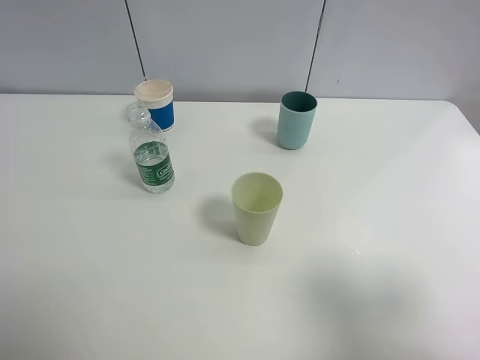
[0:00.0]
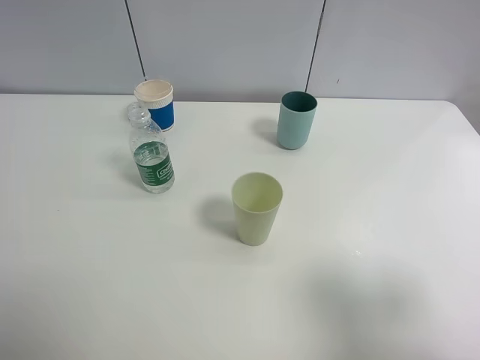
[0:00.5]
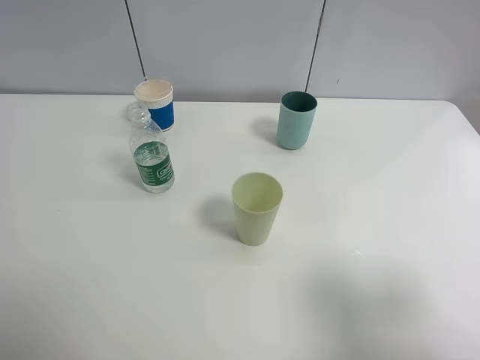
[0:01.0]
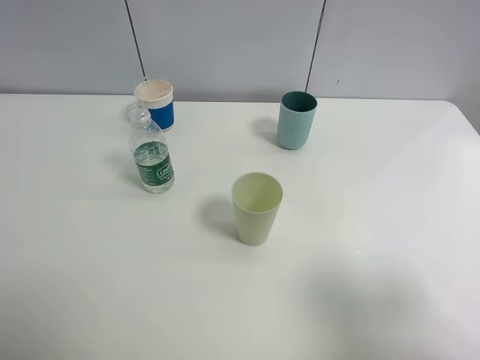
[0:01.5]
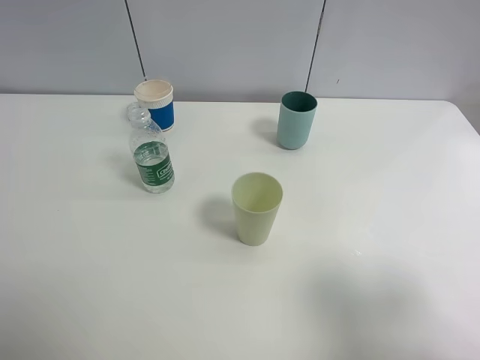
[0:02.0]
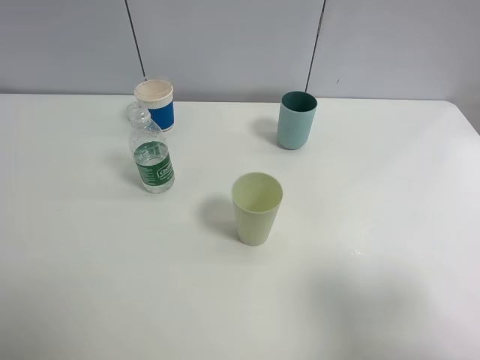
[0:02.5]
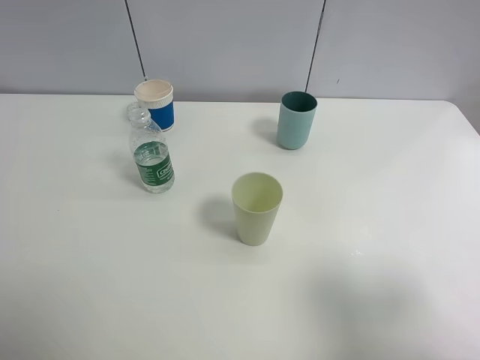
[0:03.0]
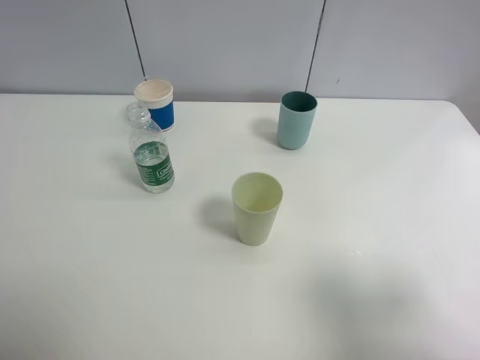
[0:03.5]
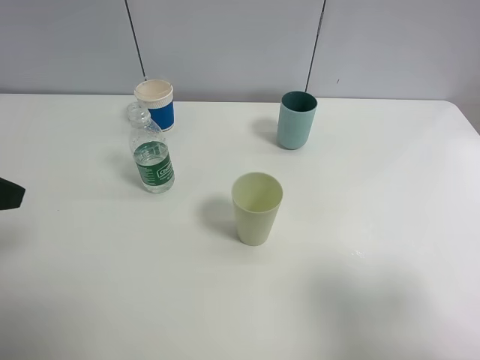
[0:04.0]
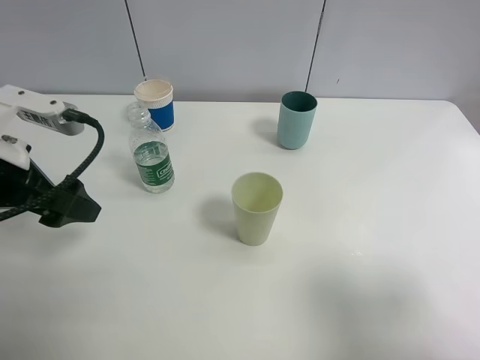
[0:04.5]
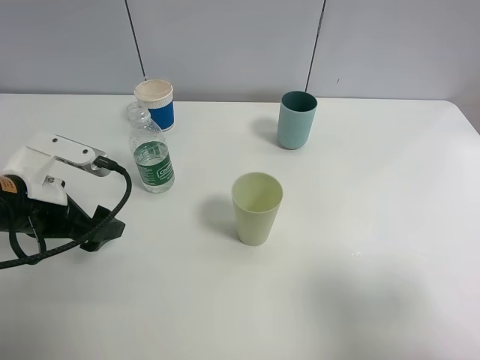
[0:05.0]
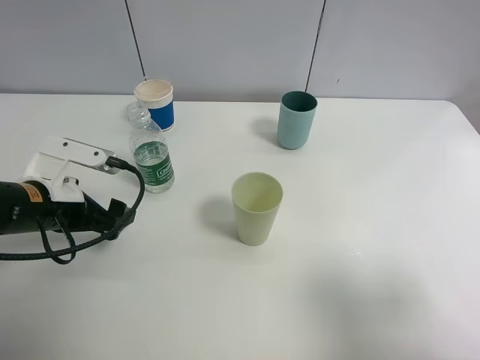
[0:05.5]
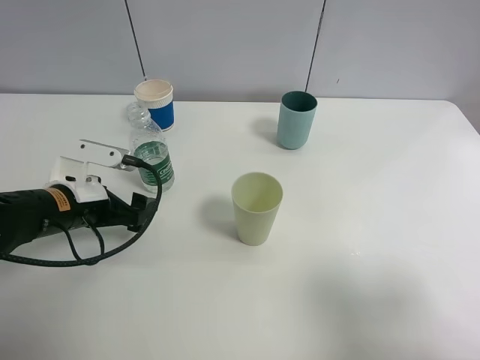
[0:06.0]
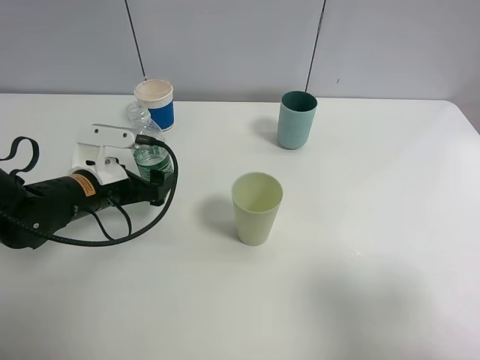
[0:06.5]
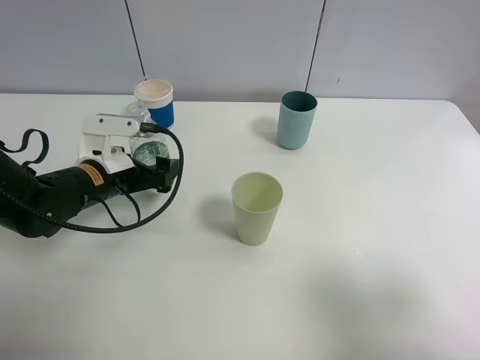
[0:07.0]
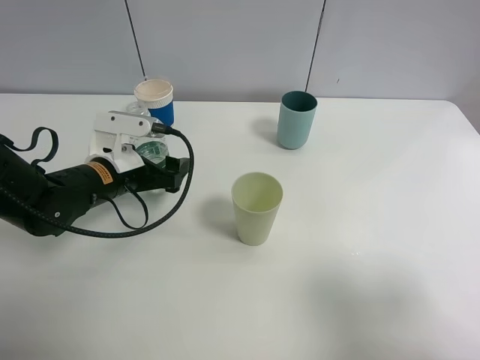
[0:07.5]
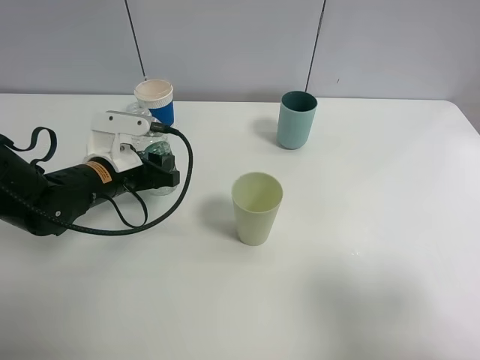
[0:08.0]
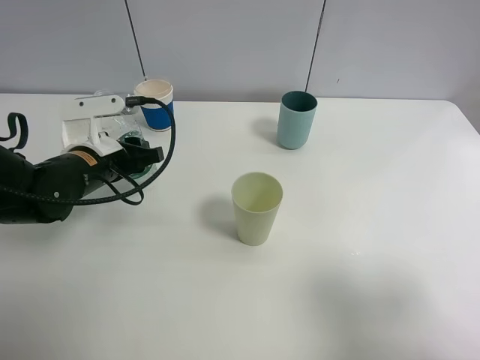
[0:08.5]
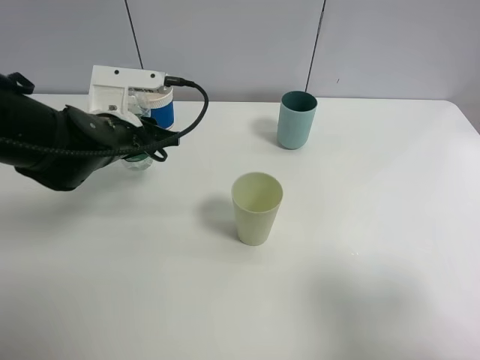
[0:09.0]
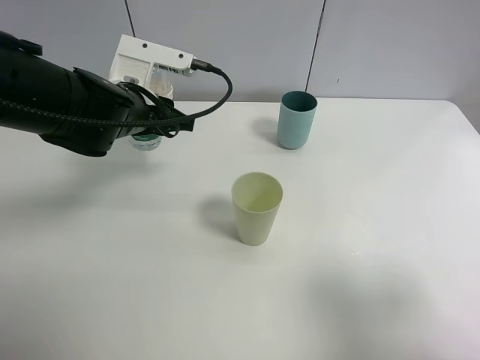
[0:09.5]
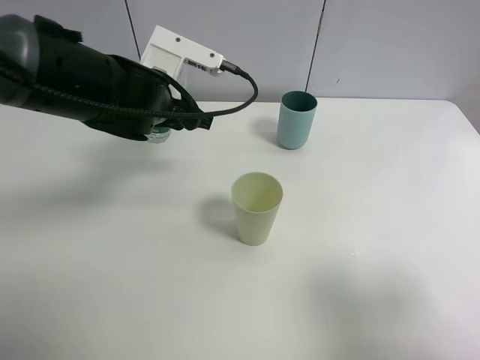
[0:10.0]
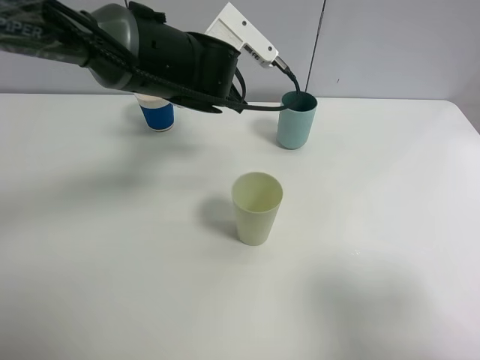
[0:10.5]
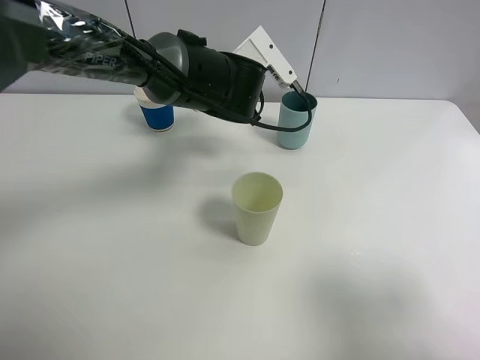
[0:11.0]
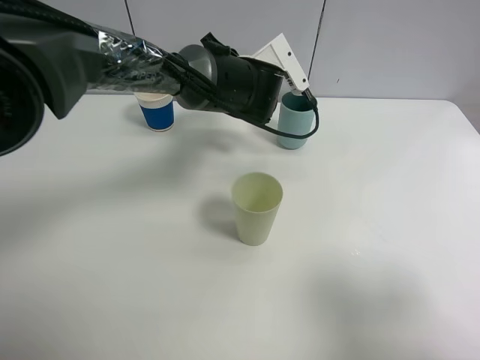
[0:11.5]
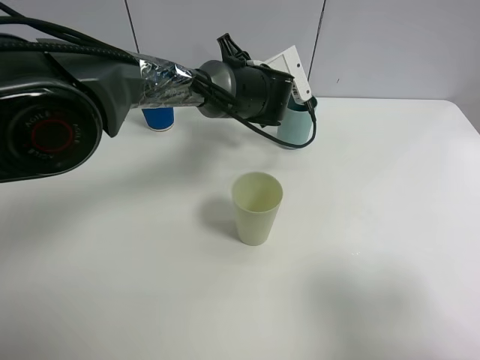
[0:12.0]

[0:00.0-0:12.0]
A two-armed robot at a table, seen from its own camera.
Task of the whole recording: use a clamp to hold the bottle of the drink, pour the beverage into a random cup, then clamp the cup containing the drink and pour the drink into another random cup.
Step, 0:00.0 to 0:08.5: Pick up the water bottle with left gripper.
0:00.0 to 0:02.0: The two grippers keep their place.
0:04.0 to 0:06.0: The left gripper moves downward and forward, some 20 cm.
0:06.0 to 0:08.0: The left gripper shifts by roughly 5 cm, and closes.
0:08.0 to 0:10.0: The left gripper shifts approximately 10 cm upward and to the right.
0:10.0 to 0:12.0: The left gripper travels to the right and forward by roughly 15 cm.

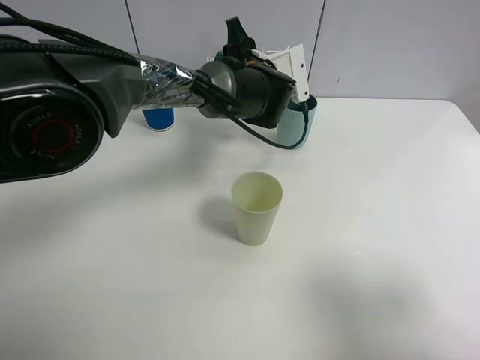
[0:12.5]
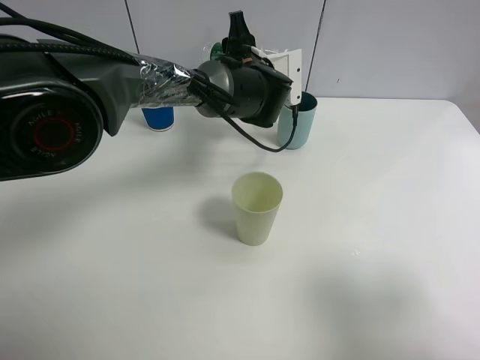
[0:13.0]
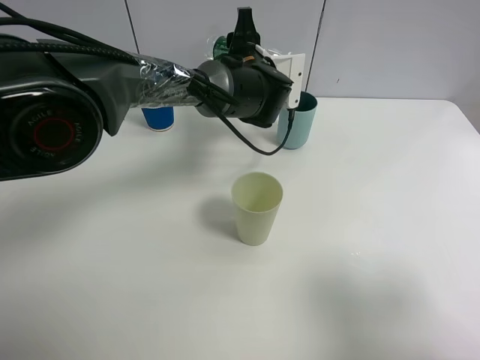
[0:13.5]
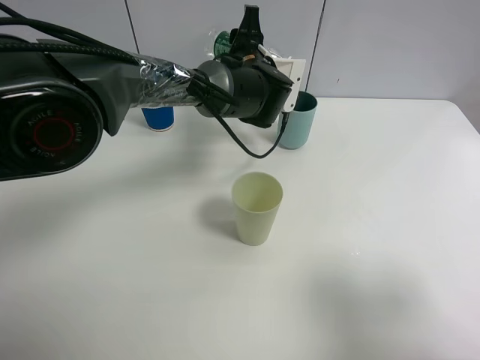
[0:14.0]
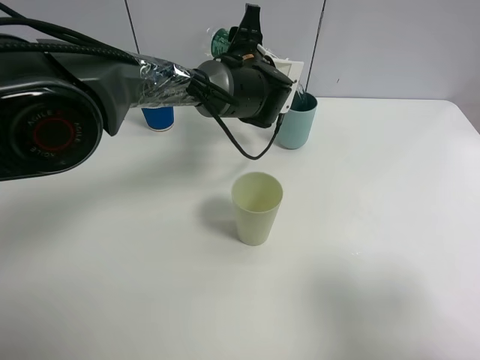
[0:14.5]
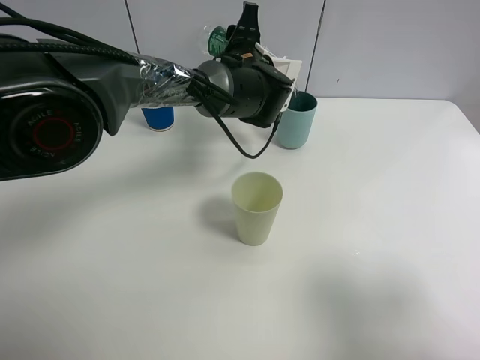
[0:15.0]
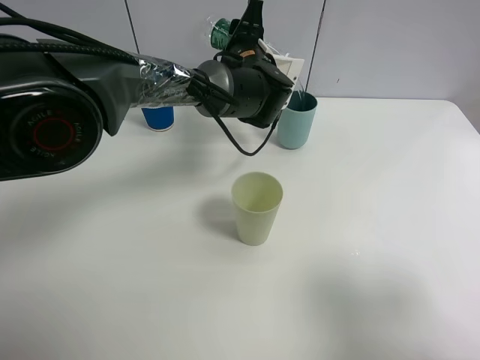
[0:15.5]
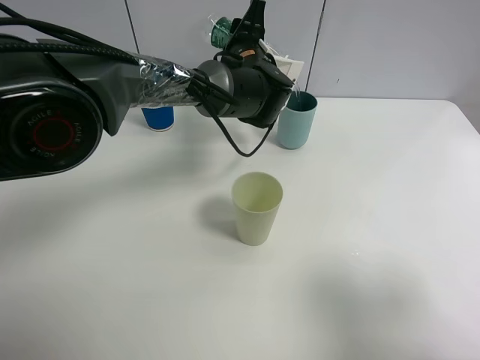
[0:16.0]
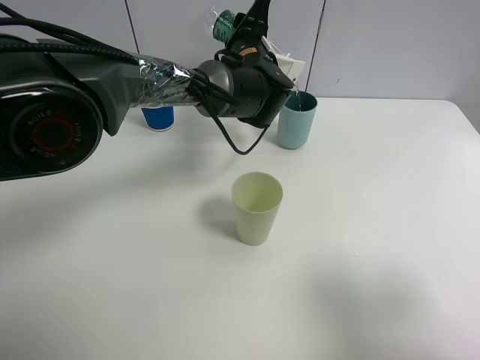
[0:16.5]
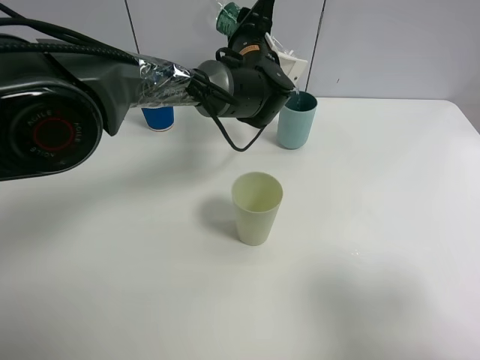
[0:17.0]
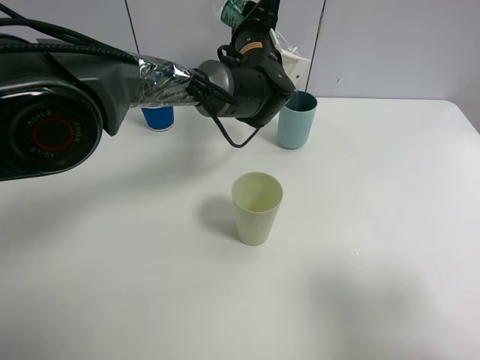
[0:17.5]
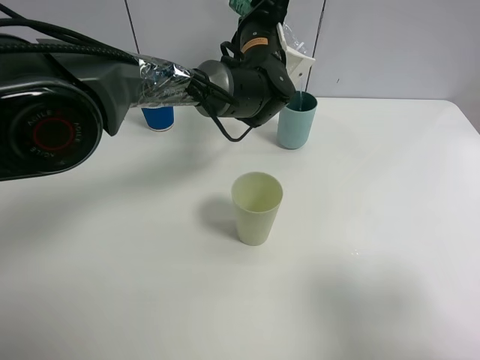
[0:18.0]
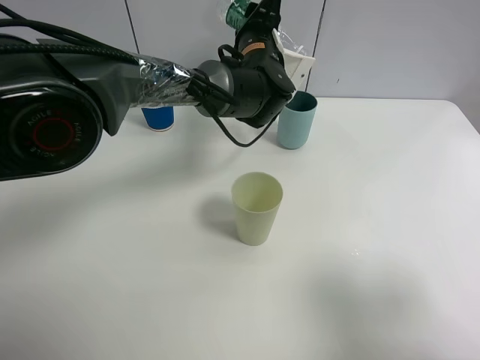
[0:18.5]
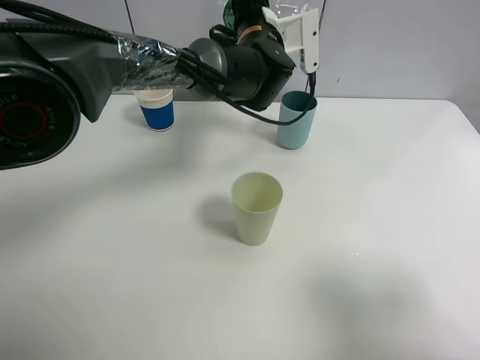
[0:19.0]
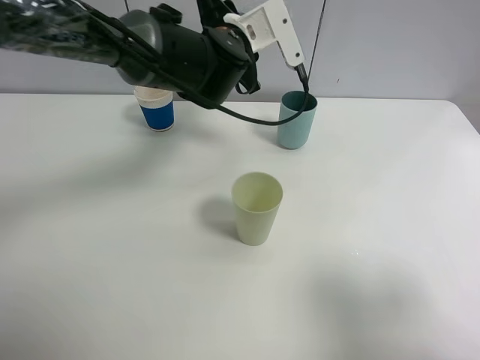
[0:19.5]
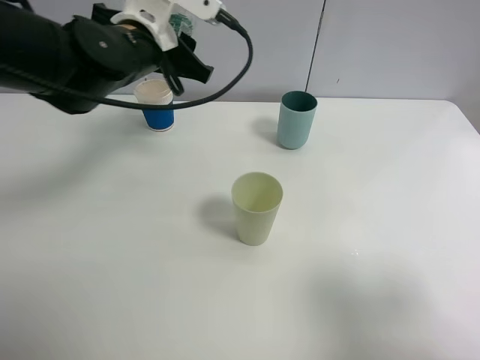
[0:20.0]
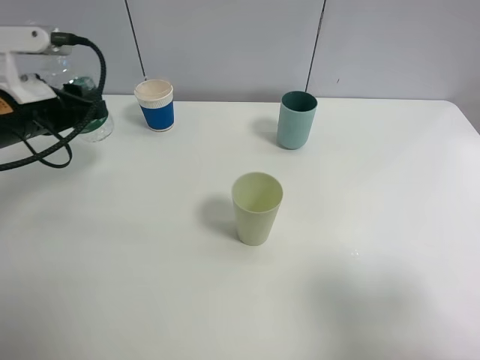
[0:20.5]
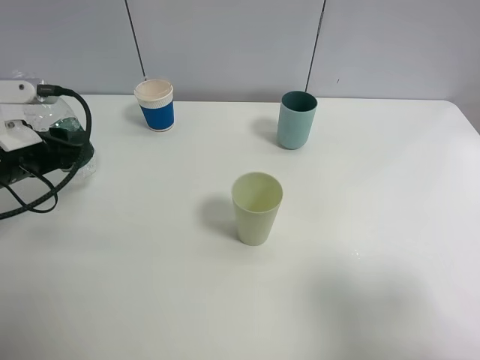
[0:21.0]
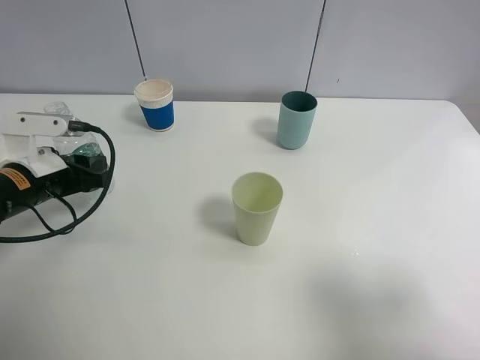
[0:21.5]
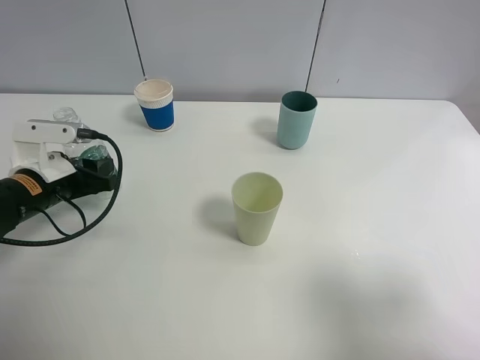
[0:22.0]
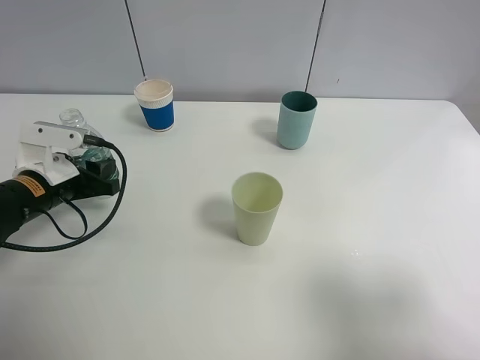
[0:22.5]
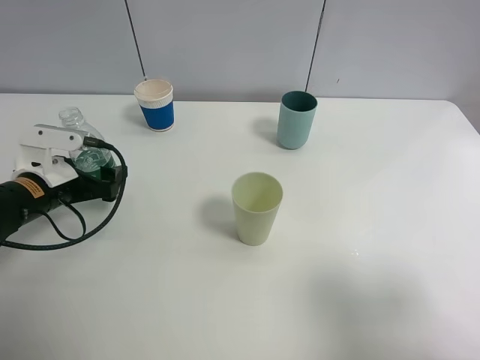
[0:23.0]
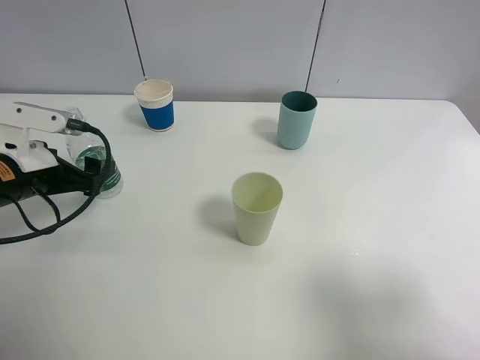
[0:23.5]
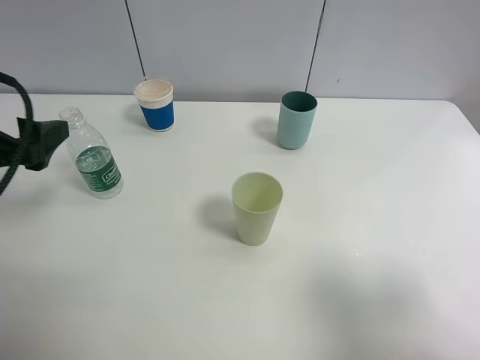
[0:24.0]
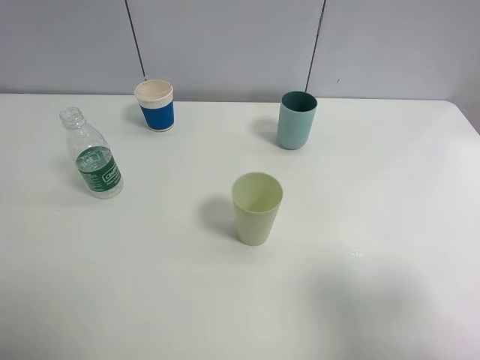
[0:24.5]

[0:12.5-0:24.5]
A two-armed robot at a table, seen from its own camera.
Task of the whole recording: use a clamp to hold the bottle of the drink, pour the beverage into a random cup, then clamp the cup containing the drink and pour the drink into another random cup.
Step, 0:12.5 to 0:18.5: Pour the water into the blue plastic cup with left gripper.
Step, 0:19.0 to 0:23.0: Place the water bottle on the table with left gripper.
0:14.5 to 0:16.5: The grippers move only a little.
0:16.5 to 0:18.5: The grippers make only small movements.
0:18.5 to 0:20.5: The left gripper travels to the left and backward by about 35 cm.
0:20.5 to 0:22.5: The left gripper travels downward by some 10 cm.
0:22.5 to 0:24.5: The left gripper travels upward and backward by some 30 cm, and opens.

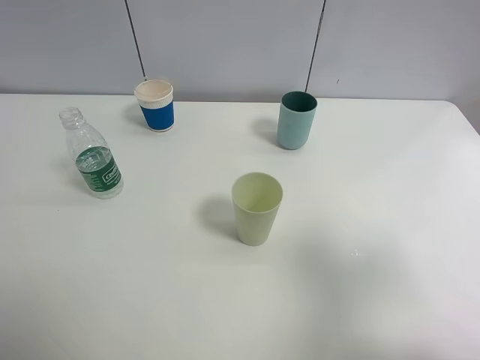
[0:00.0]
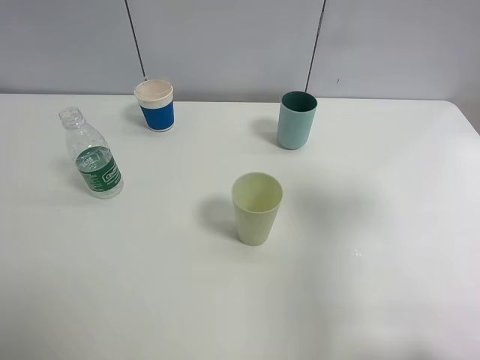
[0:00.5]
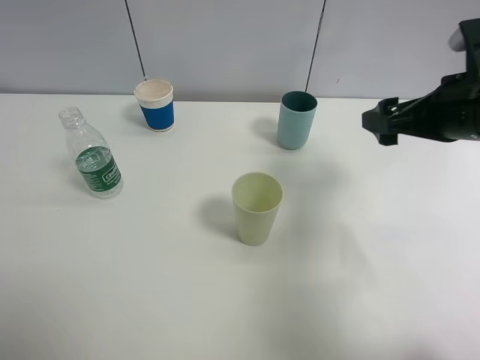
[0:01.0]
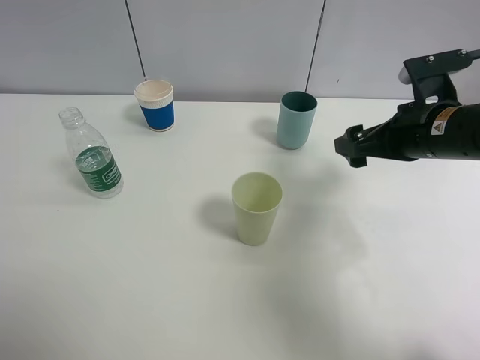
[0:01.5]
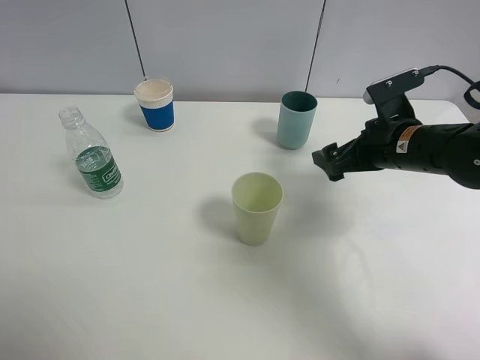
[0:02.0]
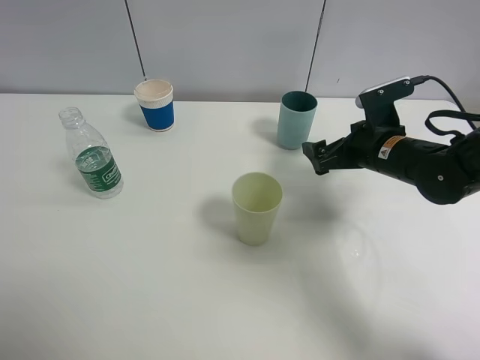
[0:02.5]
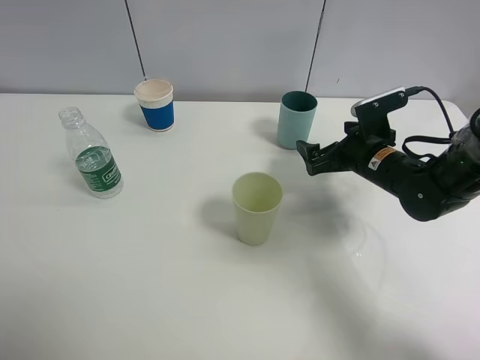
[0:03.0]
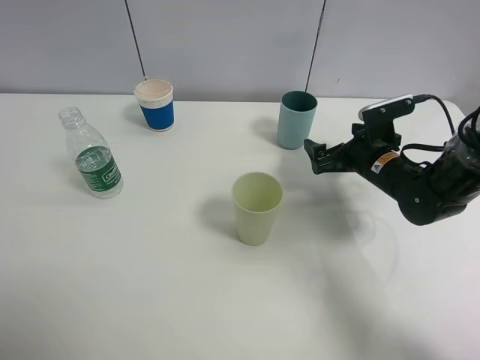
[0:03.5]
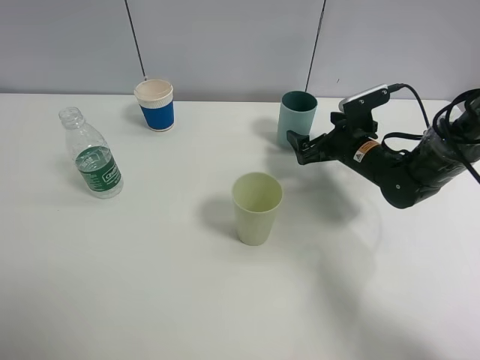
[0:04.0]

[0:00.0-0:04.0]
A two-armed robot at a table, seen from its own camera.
Task of the whole recording: use a clamp to hold the bottle of the drink, pour the beverage into a random cup, then clamp the cup containing the drink and pour the drink into another random cup.
0:00.0 to 0:02.0: The right gripper shifts roughly 30 cm forward and downward.
0:02.0 to 0:04.0: The right gripper heads downward and forward, covering approximately 10 cm.
